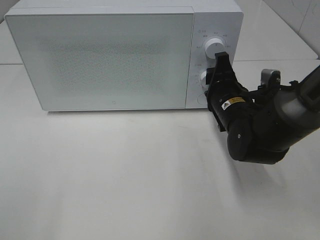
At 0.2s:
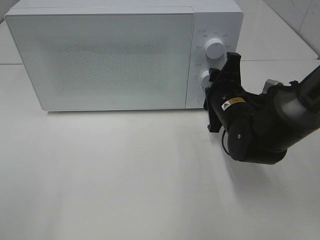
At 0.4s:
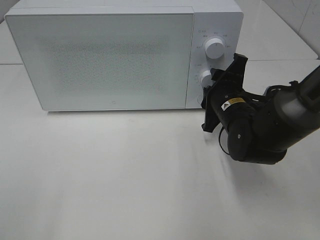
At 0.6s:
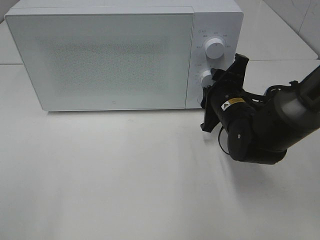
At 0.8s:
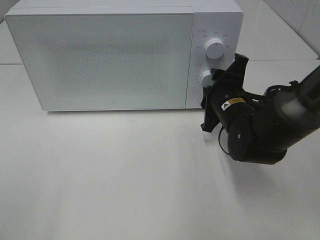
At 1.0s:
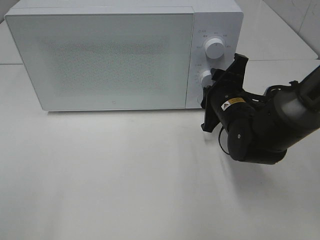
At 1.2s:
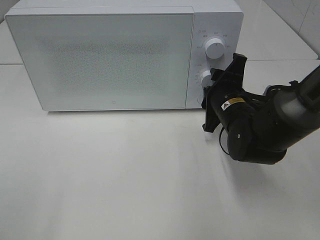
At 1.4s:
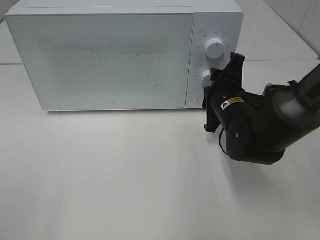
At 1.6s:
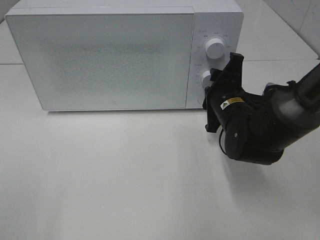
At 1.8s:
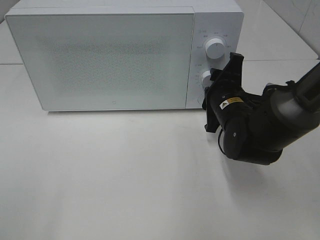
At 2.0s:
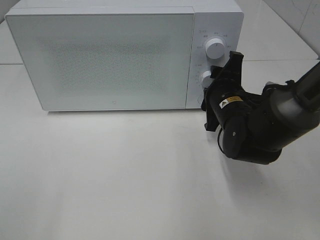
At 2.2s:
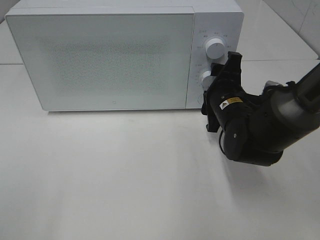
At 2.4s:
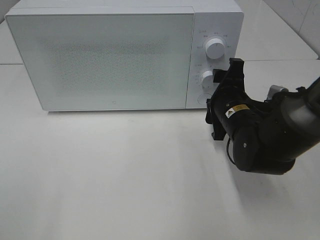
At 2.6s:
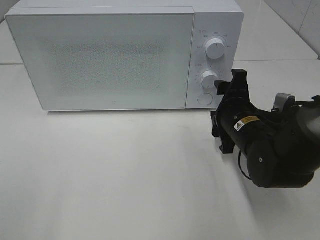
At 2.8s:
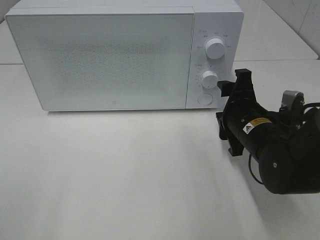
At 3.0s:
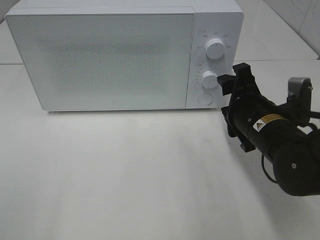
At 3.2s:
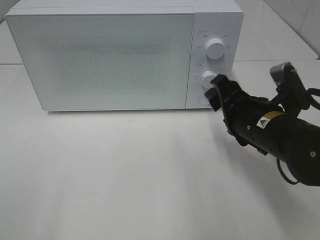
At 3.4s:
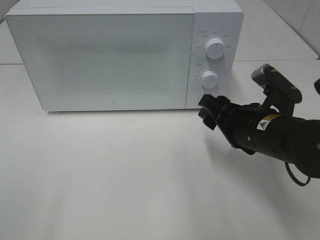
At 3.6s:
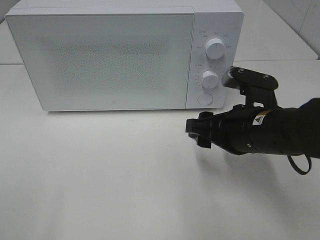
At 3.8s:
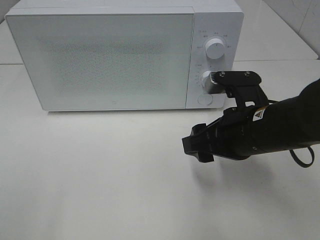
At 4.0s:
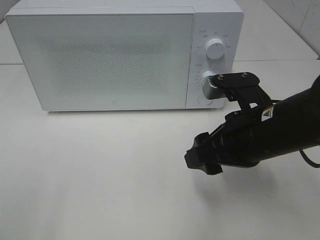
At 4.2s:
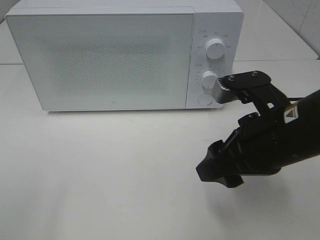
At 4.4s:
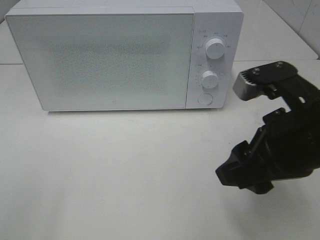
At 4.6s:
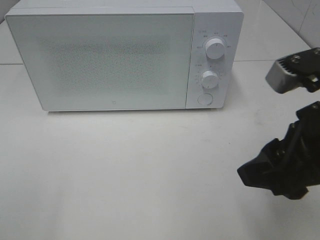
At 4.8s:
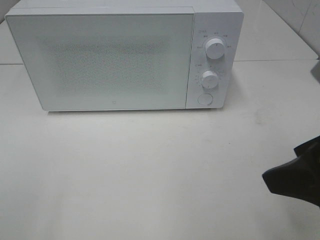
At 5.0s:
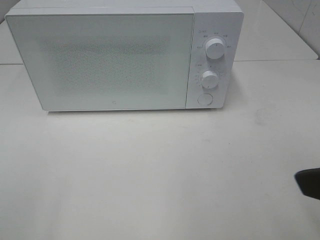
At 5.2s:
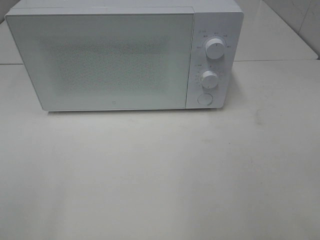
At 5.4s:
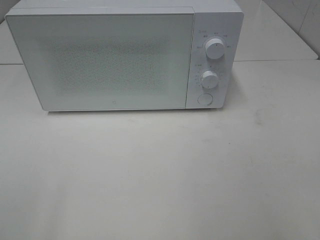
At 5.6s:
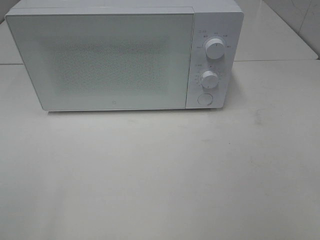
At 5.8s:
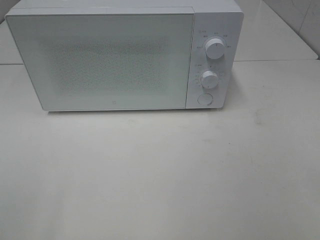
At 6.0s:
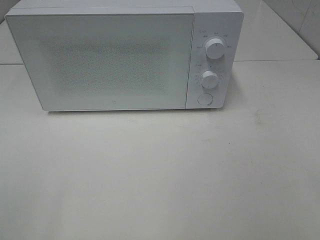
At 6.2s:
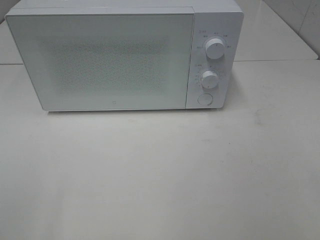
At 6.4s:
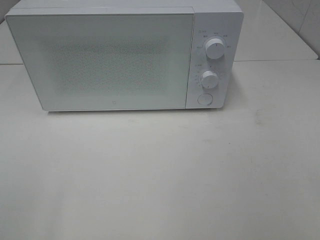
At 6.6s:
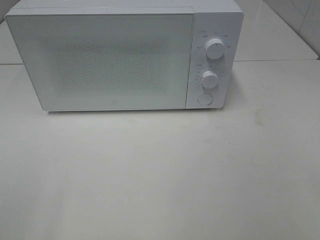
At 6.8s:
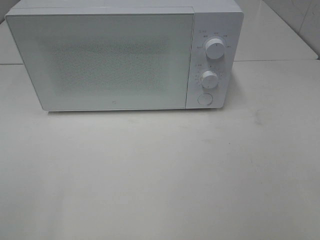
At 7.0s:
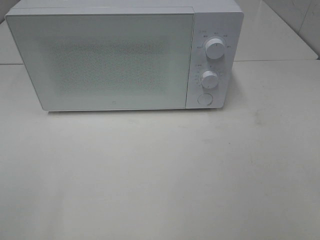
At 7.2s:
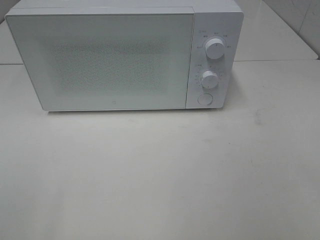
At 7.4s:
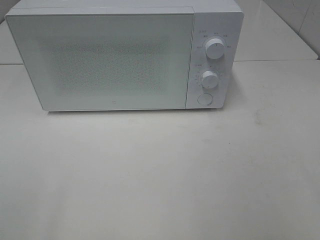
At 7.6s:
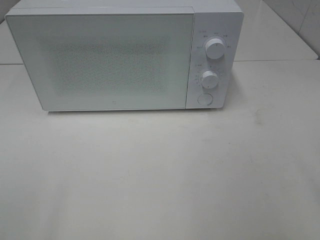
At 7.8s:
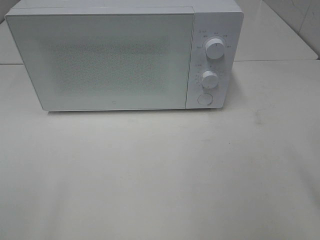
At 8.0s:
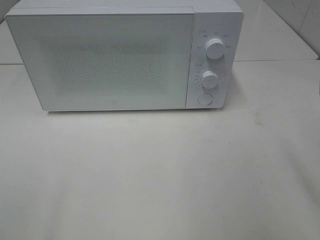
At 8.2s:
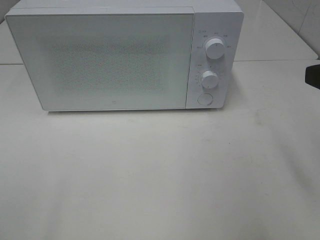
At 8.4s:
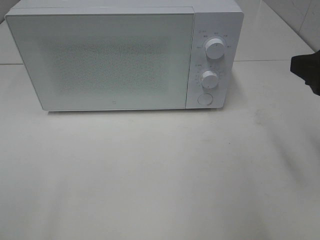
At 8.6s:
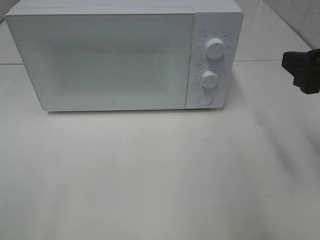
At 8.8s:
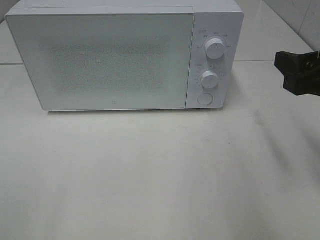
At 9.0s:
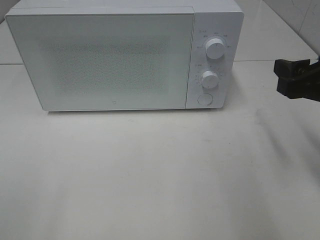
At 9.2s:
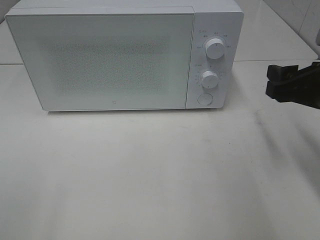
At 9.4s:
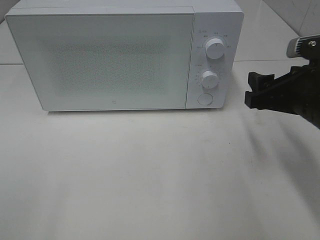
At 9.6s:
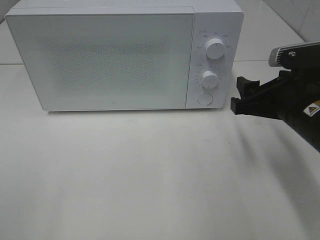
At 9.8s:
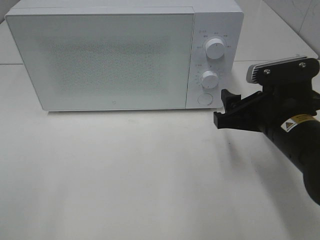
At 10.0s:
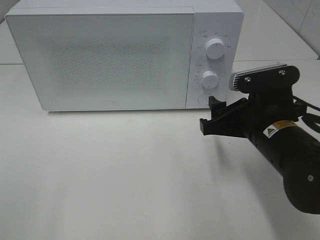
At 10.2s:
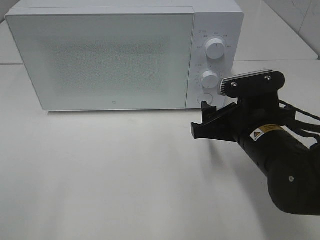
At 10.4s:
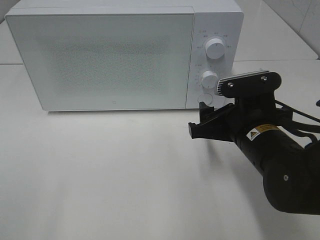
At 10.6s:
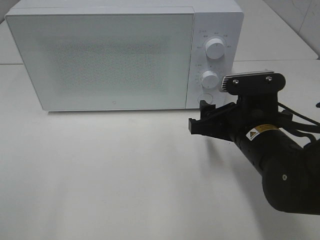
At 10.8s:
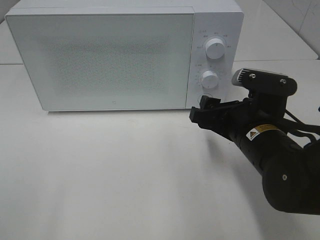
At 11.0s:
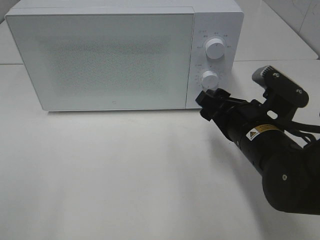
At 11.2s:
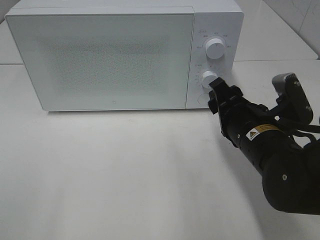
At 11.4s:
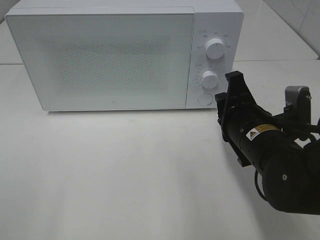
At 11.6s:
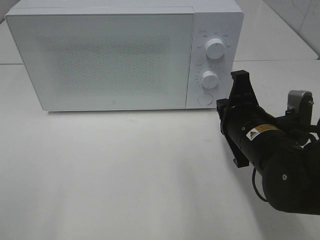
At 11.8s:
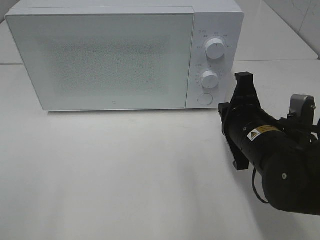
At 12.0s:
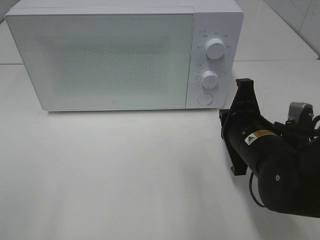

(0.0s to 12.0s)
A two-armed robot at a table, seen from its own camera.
Task of the whole recording: Heat the burger.
Step, 0.0s - 2.2s: Right hand: twist timer button.
1.6s - 3.0s: The right gripper is displaced backward by about 5 cm.
3.0s - 4.4s: The right gripper goes approximately 15 cm upward and backward.
4.4s - 6.0s: The right gripper is displaced backward and to the right by some 20 cm.
7.6s - 9.0s: The right gripper goes roughly 15 cm forward and downward.
9.0s - 10.4s: The right gripper moves to the left and downward, roughly 15 cm.
10.4s - 12.0s: The right gripper closes.

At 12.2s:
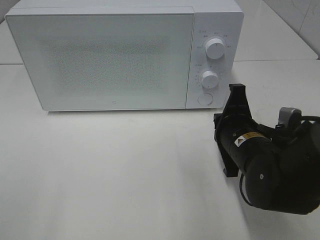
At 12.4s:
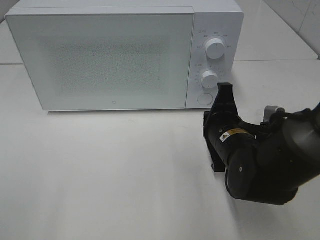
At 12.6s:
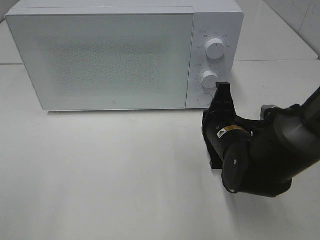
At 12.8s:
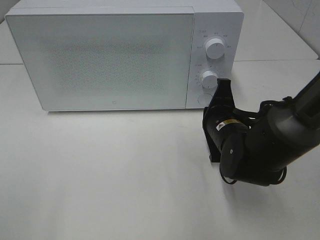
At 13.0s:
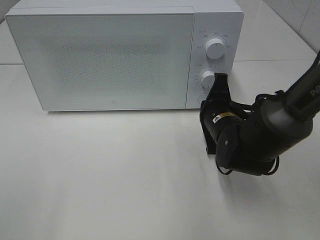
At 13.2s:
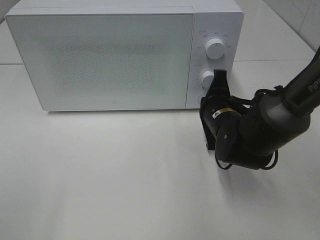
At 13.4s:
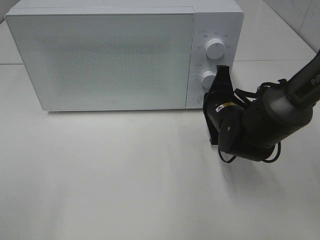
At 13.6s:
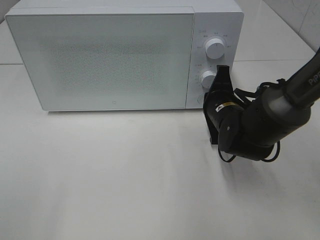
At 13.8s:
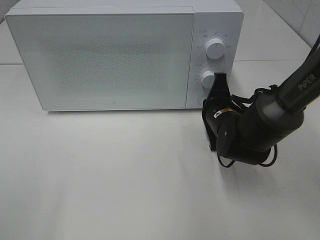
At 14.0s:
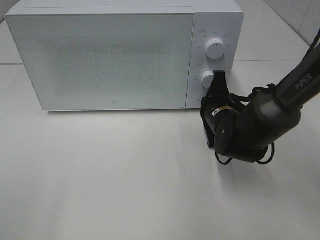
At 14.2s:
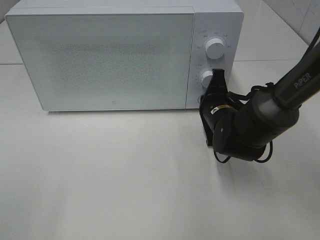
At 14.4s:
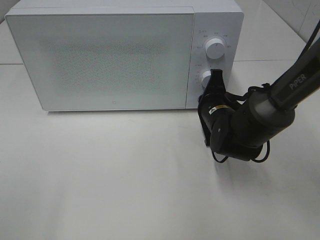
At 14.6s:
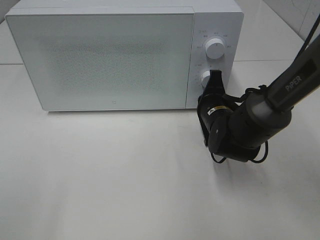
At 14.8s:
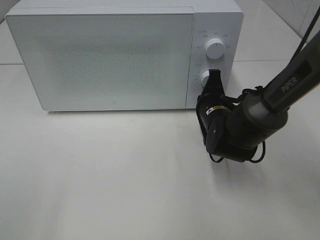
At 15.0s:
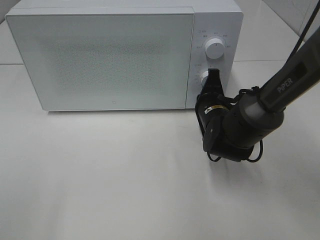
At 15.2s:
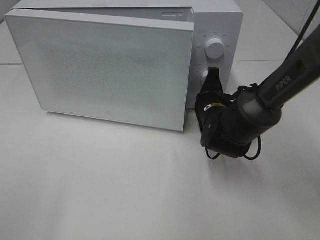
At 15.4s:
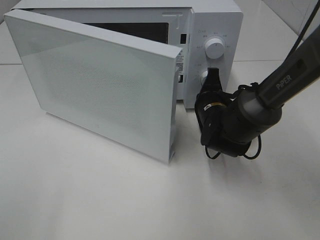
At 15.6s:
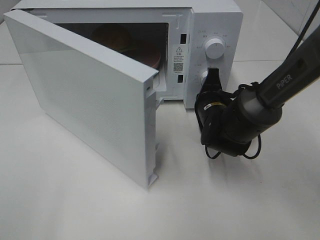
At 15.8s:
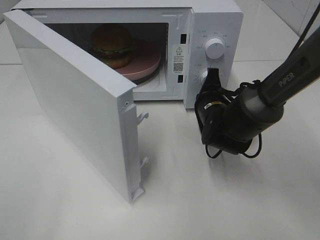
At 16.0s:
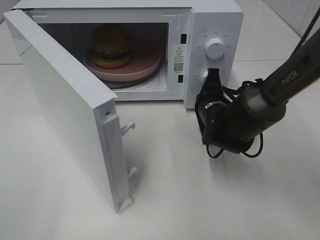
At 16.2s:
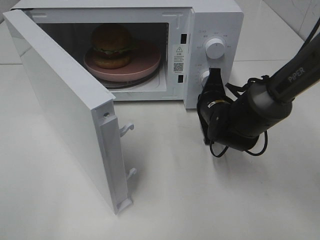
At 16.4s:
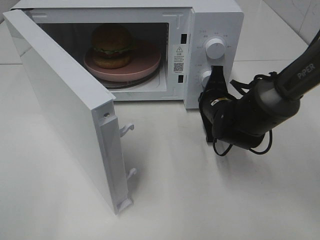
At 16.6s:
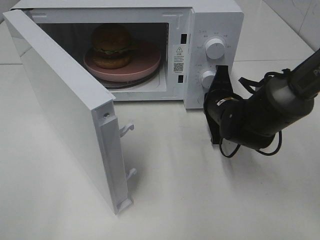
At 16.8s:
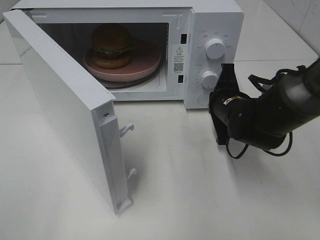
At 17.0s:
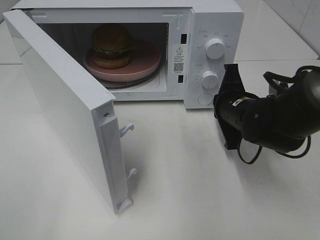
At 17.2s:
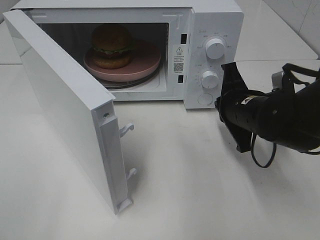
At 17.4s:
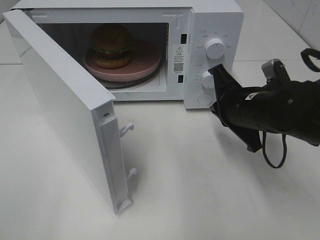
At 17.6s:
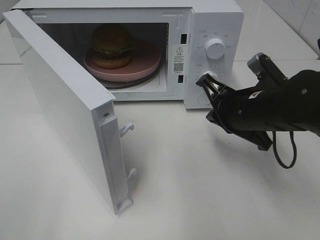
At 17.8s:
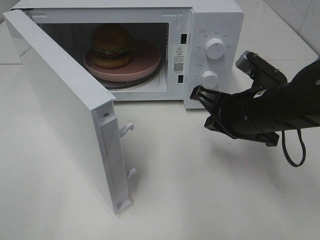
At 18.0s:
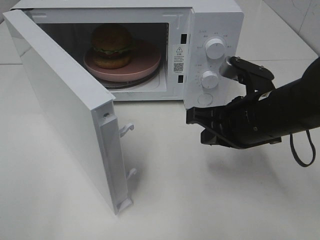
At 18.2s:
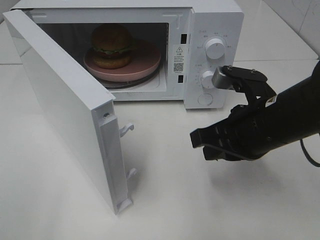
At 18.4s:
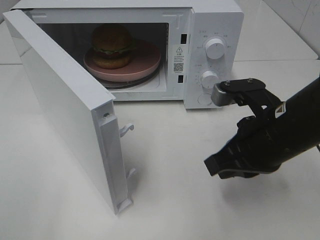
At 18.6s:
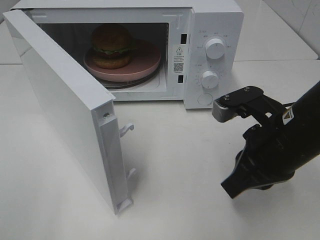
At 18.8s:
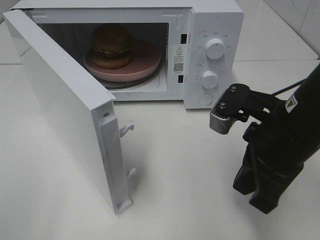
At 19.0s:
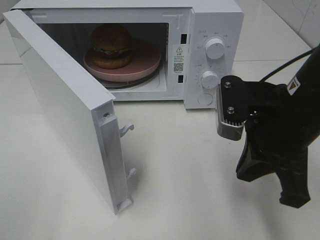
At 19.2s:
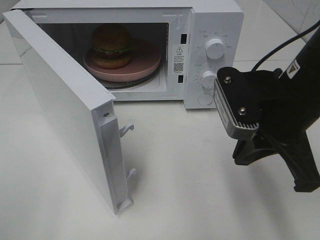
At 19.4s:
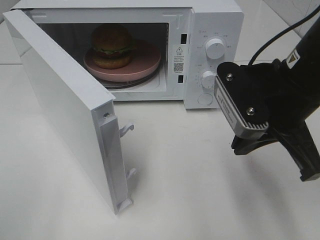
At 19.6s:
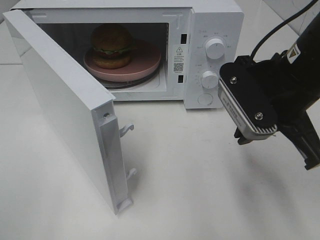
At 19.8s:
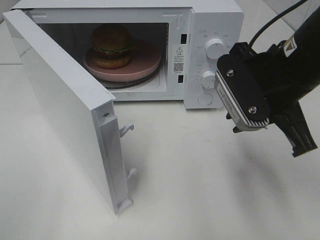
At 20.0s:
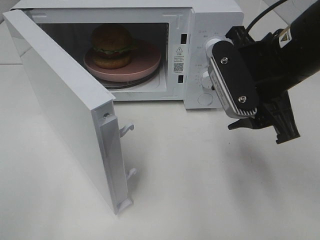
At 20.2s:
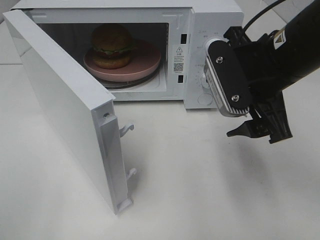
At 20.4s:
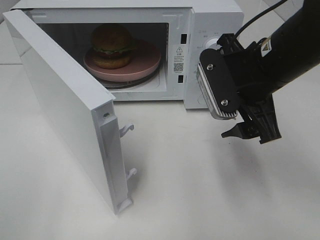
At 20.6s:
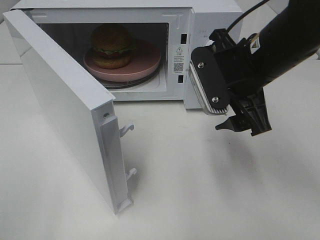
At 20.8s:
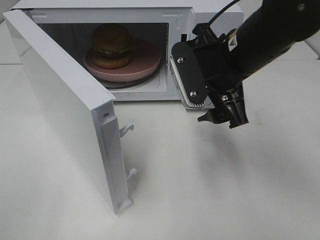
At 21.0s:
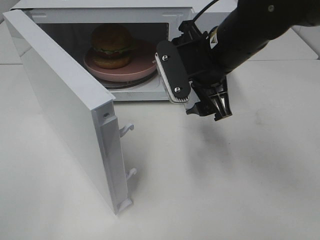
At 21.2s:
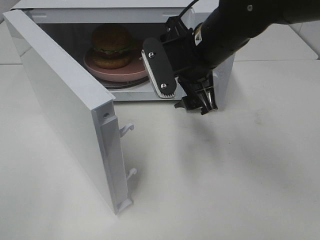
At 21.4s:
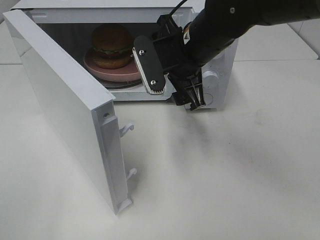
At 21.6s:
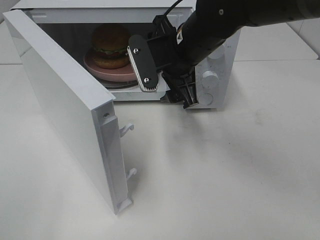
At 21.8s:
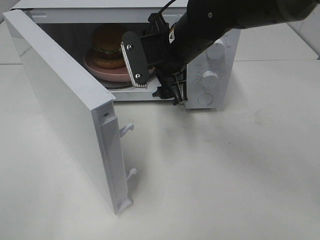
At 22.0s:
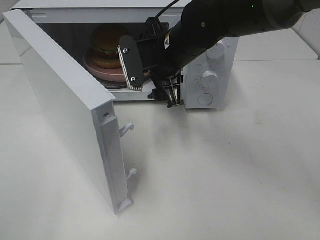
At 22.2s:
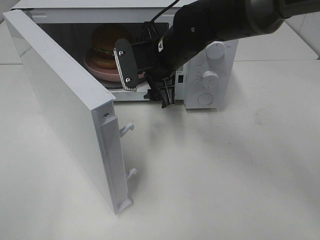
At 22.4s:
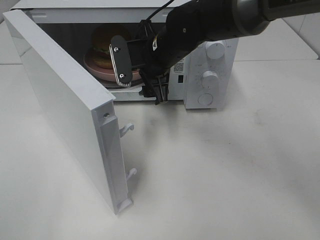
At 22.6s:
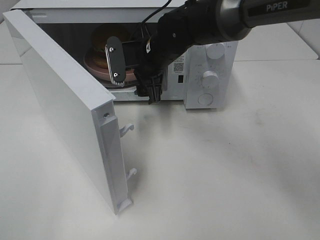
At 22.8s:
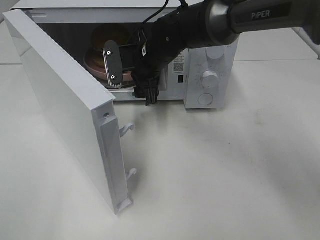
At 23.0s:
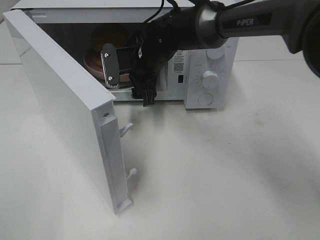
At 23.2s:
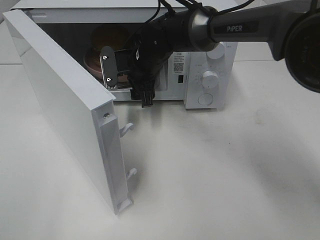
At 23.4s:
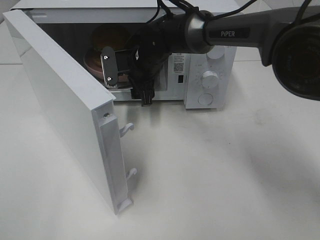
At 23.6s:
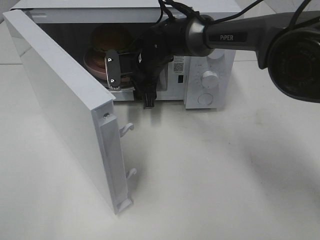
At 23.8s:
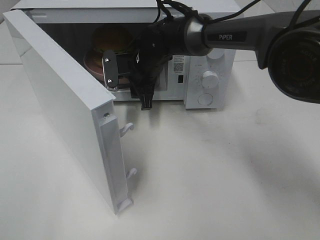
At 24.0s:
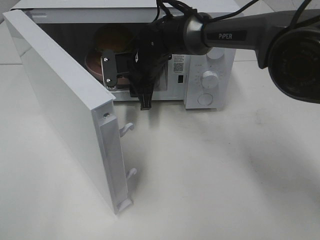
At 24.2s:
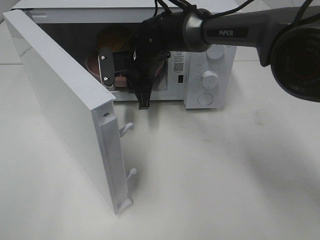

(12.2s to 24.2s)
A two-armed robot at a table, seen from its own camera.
Task of the whole recording: Heat the burger.
Step, 12.2s - 16.6s: Right hand: press the switch.
Step, 16.8s - 24.2s: Right hand: grab the plate with the hamburger.
12.2s - 13.8s: The right gripper moves forward, approximately 10 cm.
13.8s - 15.2s: The grippers move only a little.
16.6s - 18.2s: The right gripper goes roughly 15 cm backward and upward.
18.2s - 19.8s: The right gripper travels upward by some 5 cm, and opens.
19.8s - 21.2s: The right gripper shifts about 10 cm to the left and forward, and opens up.
21.2s - 22.6s: The right gripper is displaced forward, to the left and downward by approximately 10 cm.
22.6s - 24.2s: The right gripper shifts by roughly 5 cm, and closes.
